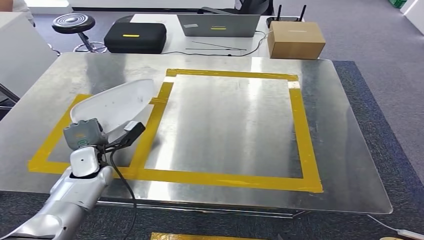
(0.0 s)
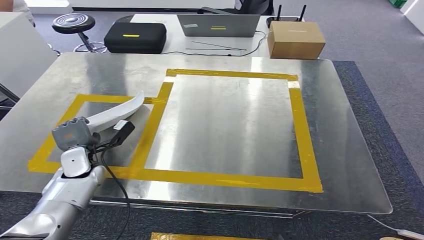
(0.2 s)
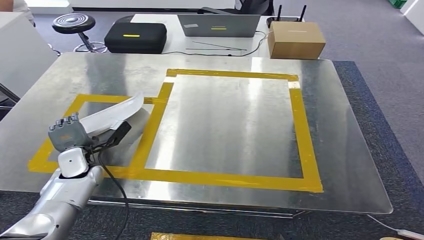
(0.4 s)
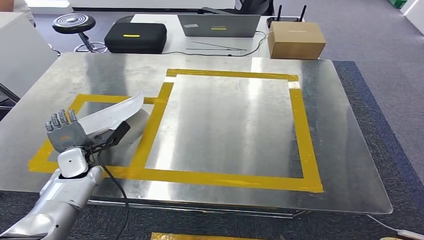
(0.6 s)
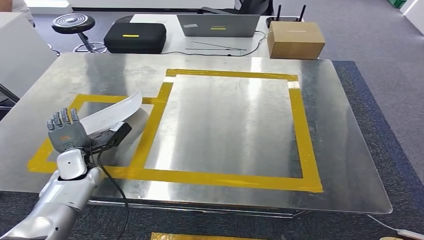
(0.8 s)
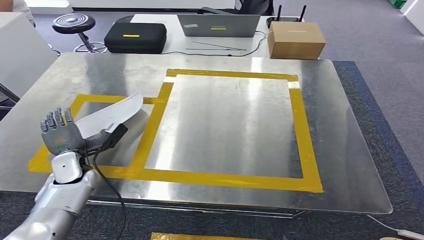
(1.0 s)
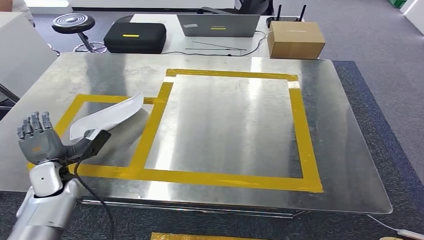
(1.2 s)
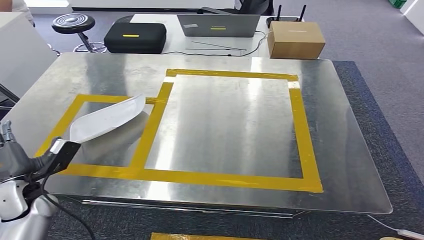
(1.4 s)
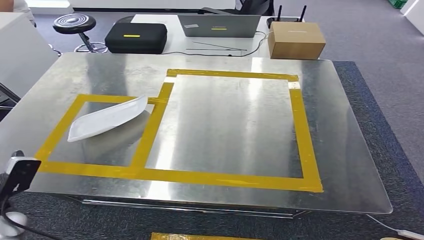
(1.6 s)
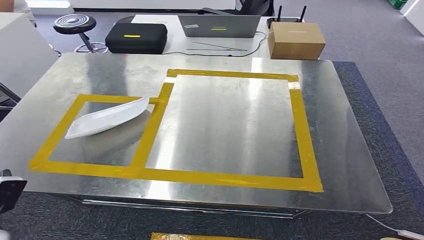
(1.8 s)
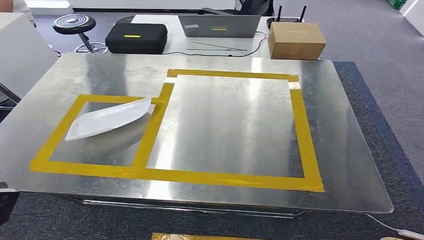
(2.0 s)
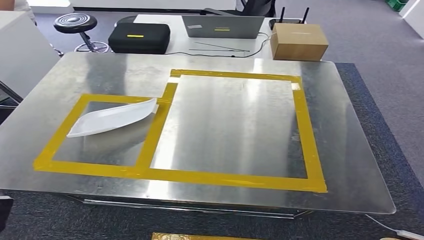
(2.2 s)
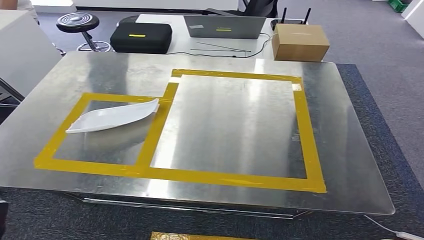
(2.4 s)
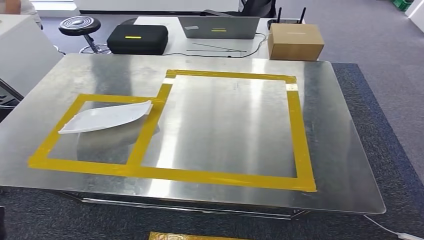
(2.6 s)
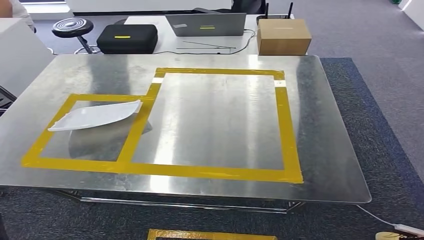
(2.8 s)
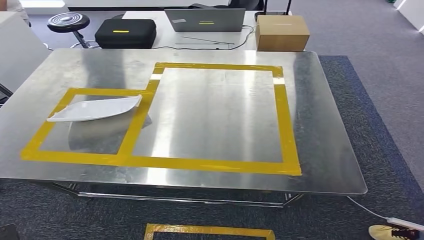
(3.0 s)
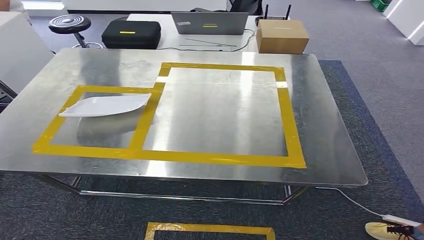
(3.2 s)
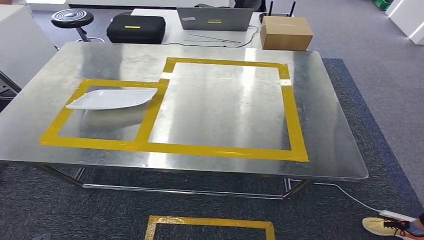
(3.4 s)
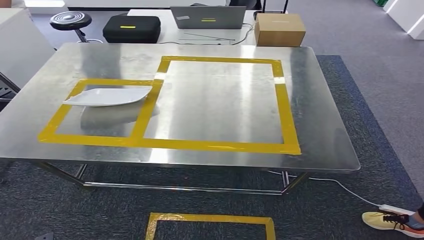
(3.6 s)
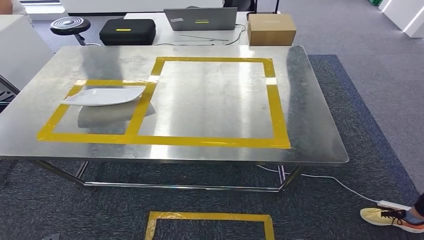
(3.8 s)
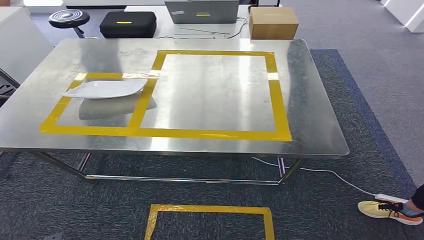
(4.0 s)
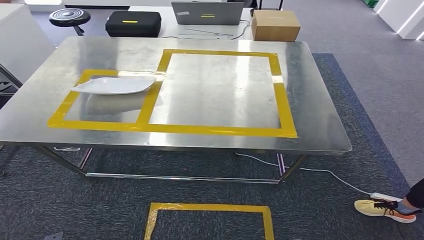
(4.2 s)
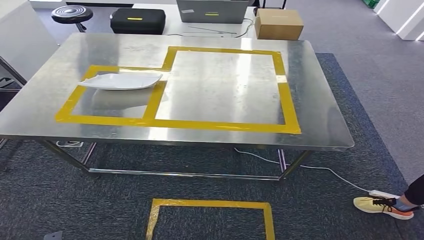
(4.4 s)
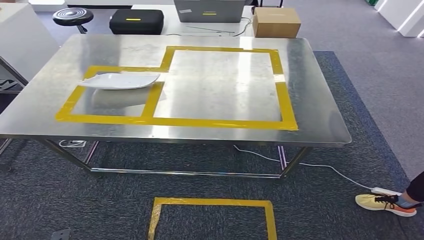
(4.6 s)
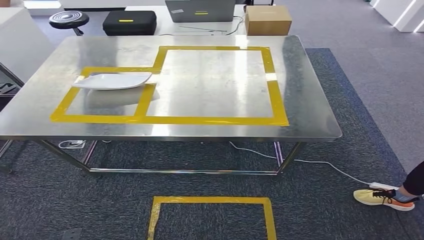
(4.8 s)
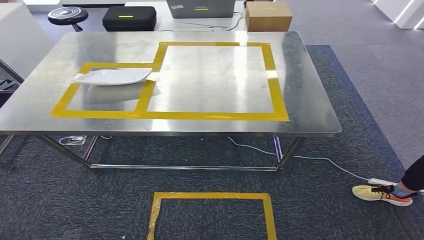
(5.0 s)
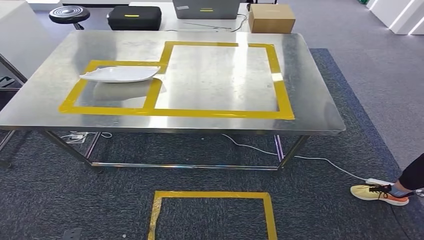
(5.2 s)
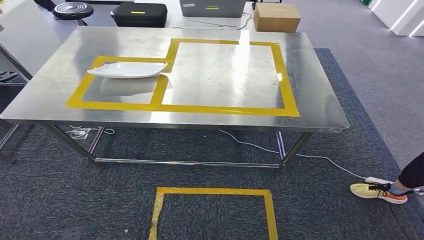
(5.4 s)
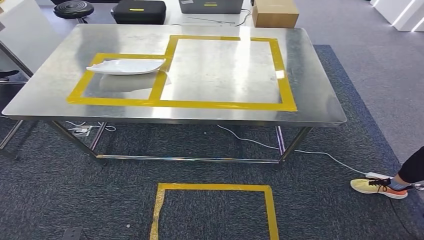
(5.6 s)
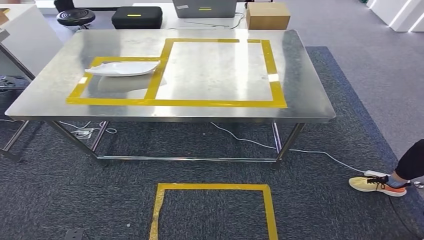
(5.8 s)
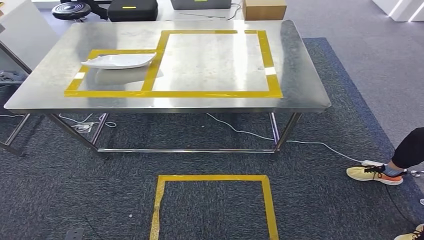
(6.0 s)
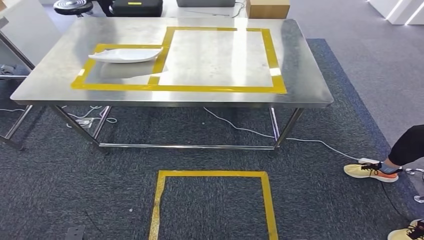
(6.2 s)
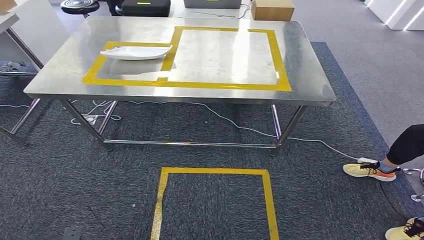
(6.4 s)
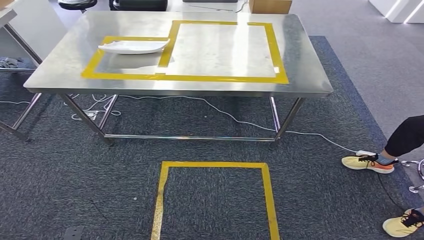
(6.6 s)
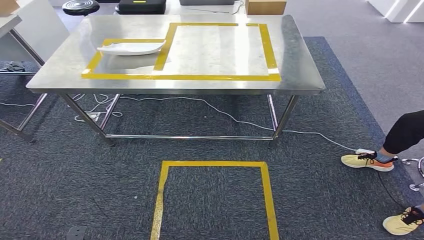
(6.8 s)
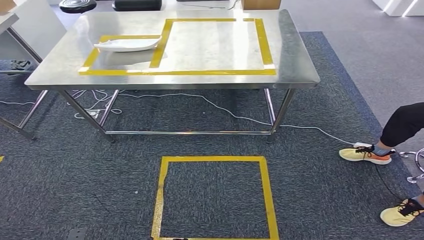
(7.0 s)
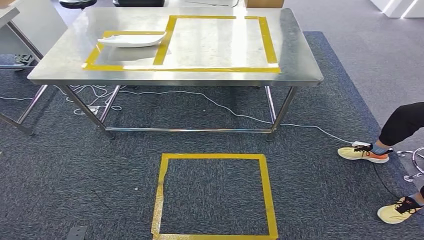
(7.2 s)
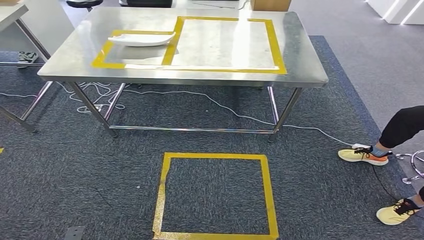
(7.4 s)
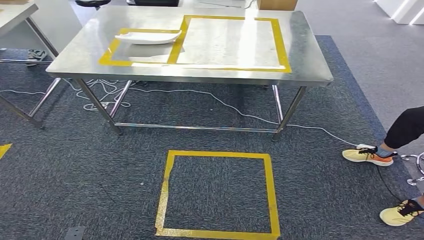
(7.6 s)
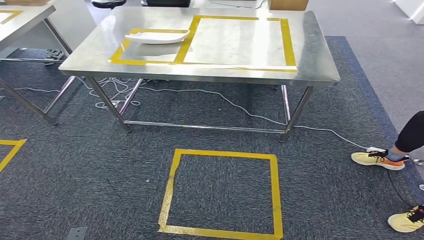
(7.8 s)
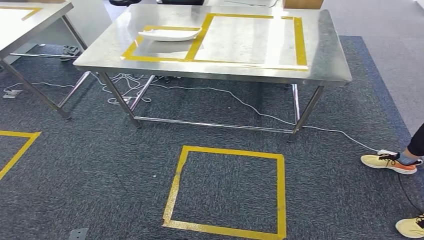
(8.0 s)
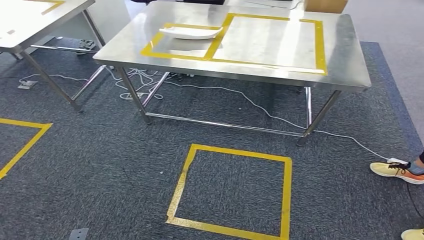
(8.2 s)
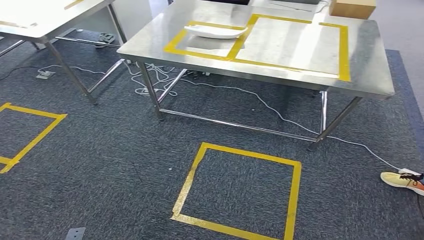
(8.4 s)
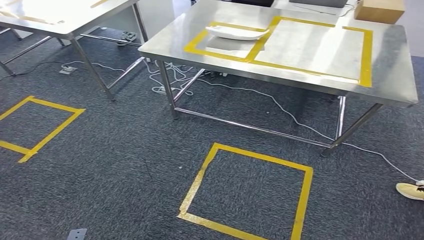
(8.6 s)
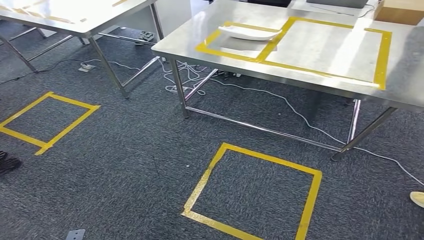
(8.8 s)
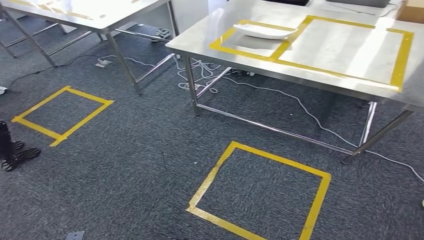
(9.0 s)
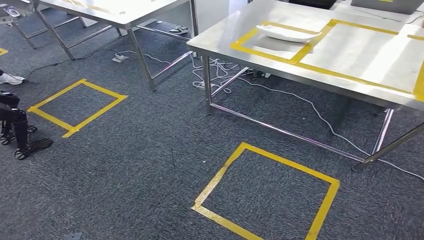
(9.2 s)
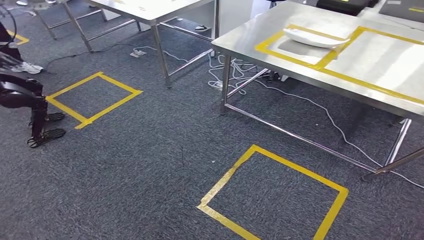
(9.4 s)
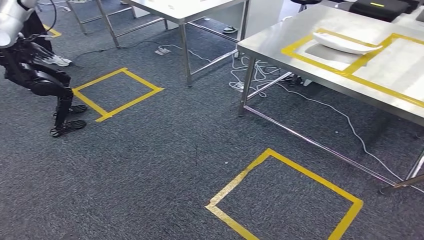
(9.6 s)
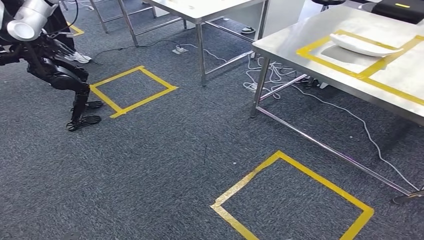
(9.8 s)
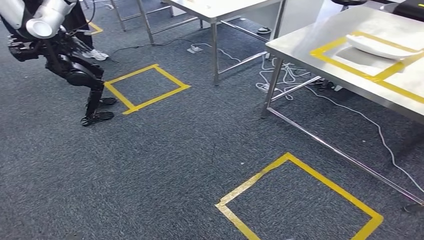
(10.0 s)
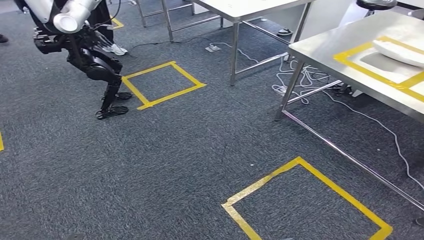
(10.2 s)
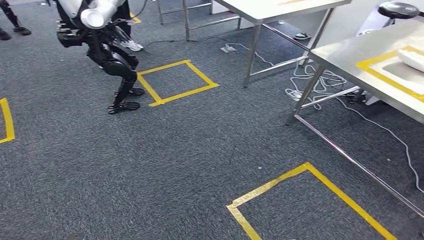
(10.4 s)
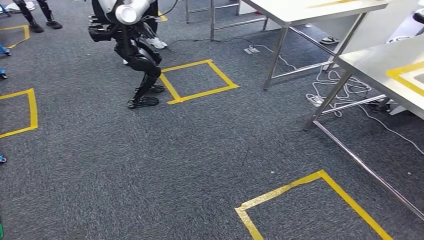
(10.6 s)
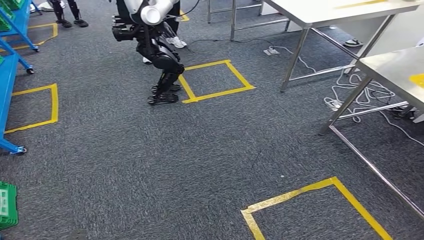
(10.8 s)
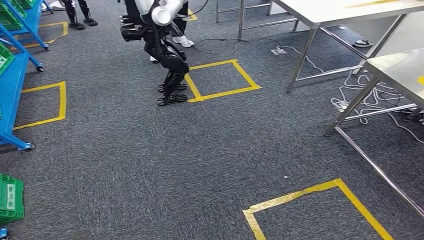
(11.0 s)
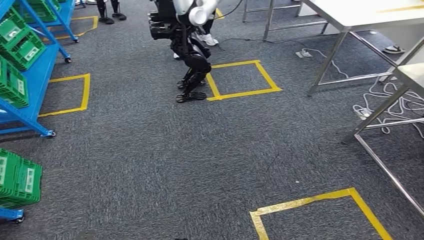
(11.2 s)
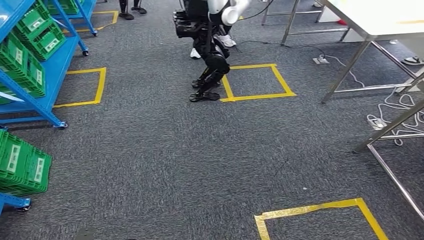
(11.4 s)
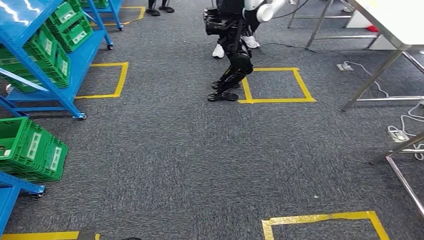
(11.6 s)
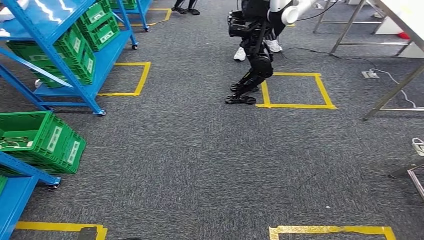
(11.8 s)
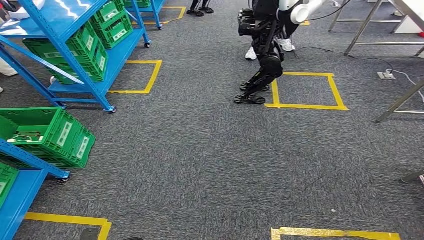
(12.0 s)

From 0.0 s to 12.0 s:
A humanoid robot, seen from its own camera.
Step, from 0.0 s to 6.0 s: Insert the small component into the corresponding slot on the workbench.
From 0.0 s to 1.6 s: The left hand shifts approximately 15 cm backward and to the left.

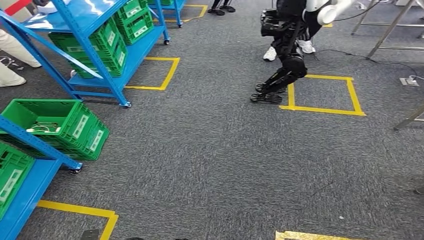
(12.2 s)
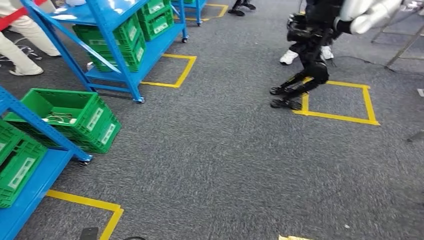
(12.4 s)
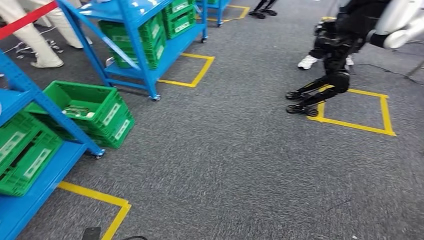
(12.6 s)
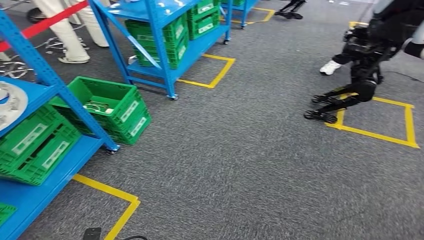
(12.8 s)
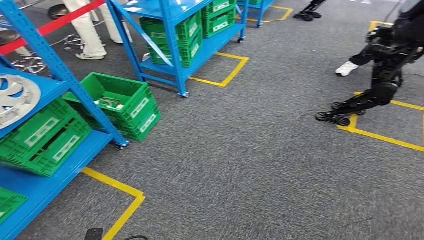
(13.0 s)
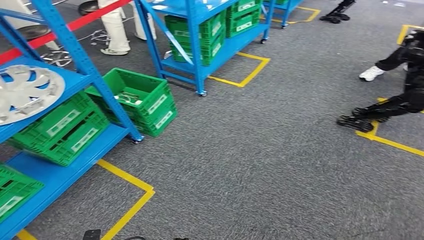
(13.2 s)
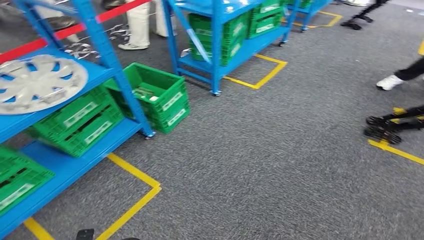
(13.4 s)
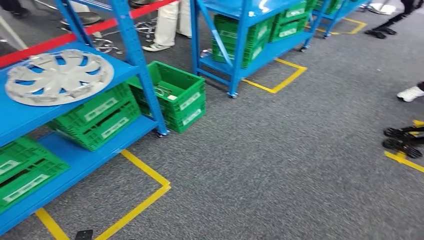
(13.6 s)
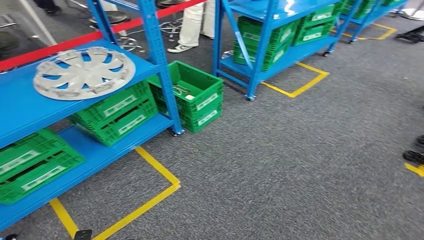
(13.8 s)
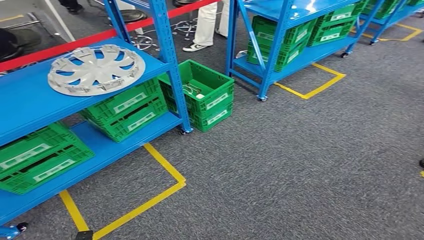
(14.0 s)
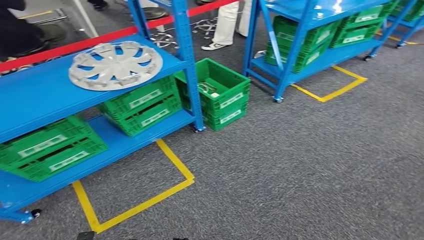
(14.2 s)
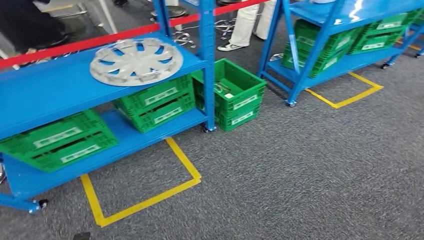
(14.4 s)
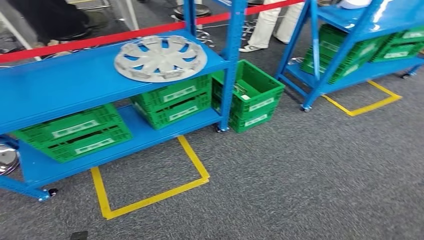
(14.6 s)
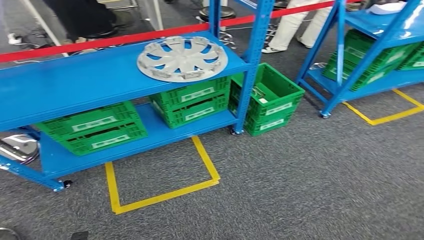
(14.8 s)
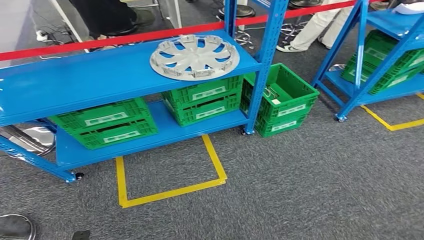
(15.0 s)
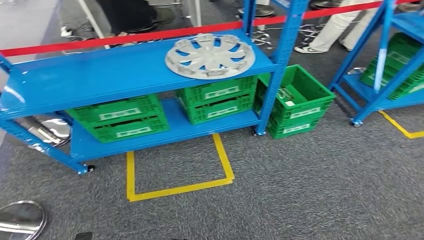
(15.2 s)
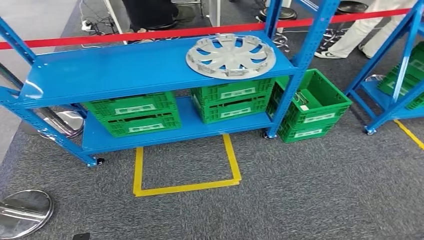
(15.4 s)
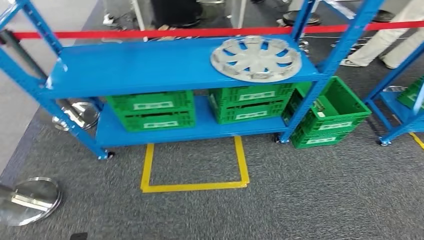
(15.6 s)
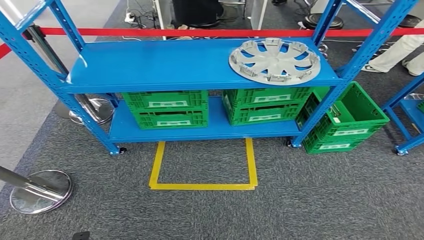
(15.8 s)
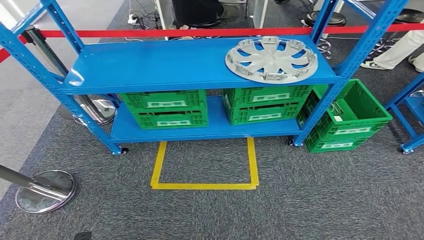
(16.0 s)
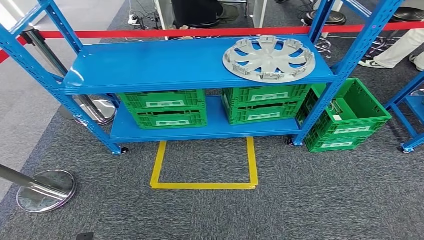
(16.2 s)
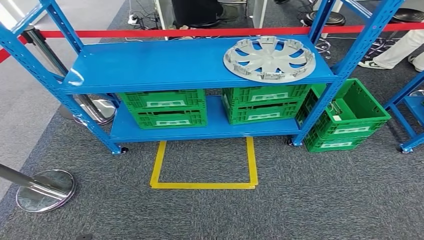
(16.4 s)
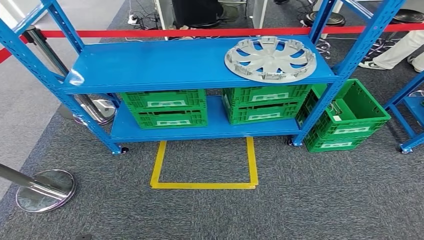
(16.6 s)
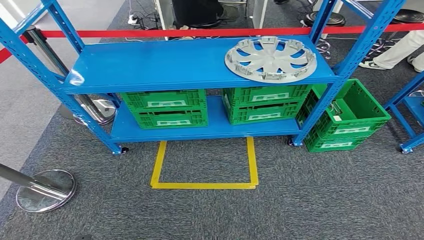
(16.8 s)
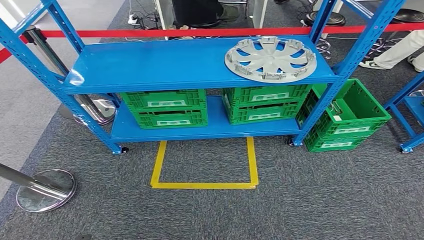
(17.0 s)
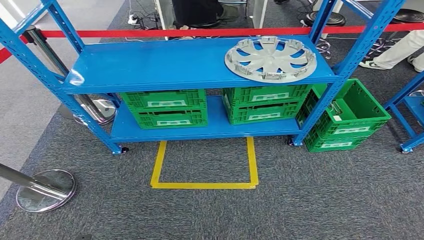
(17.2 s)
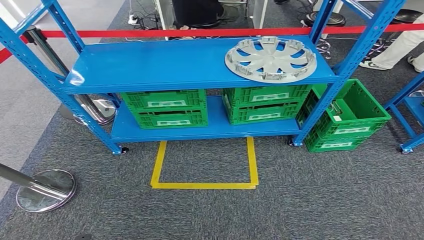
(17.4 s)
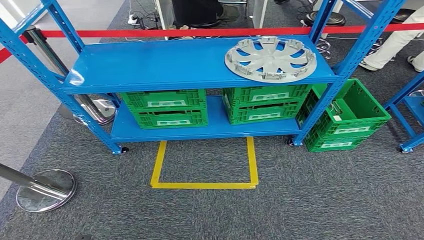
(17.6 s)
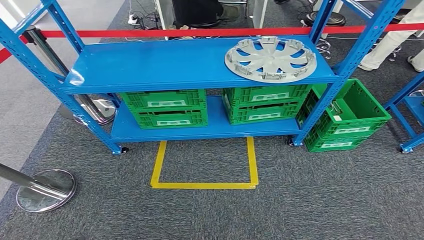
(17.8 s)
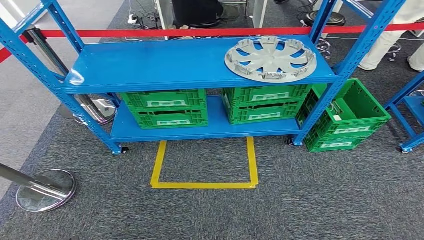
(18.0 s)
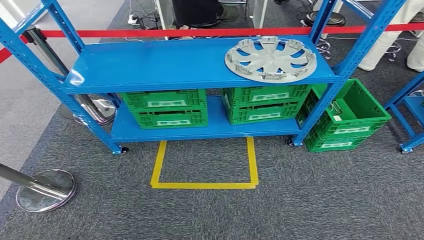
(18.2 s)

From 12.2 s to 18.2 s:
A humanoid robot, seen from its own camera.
Step, from 12.2 s to 18.0 s: Return to the initial position at the workbench.
From 16.6 s to 18.2 s: The hands move only a little.
